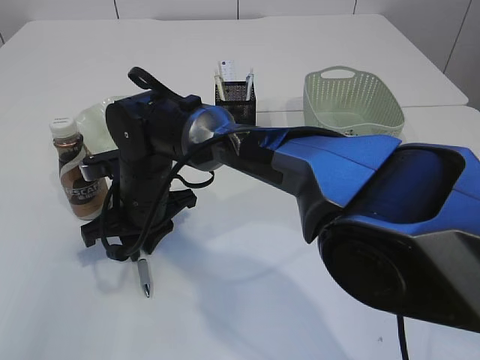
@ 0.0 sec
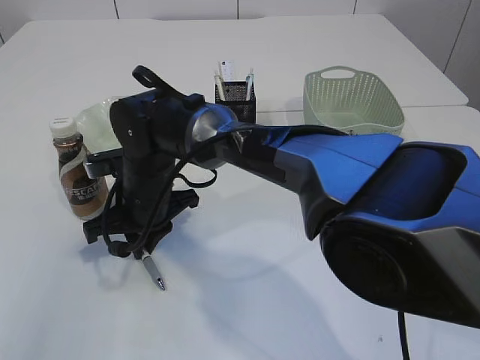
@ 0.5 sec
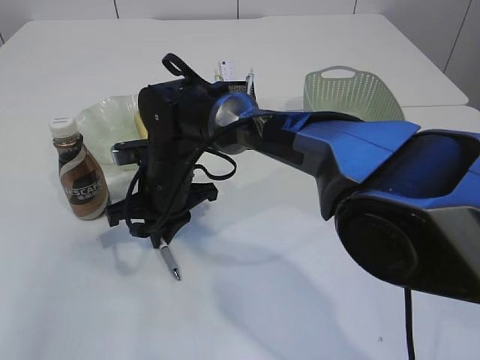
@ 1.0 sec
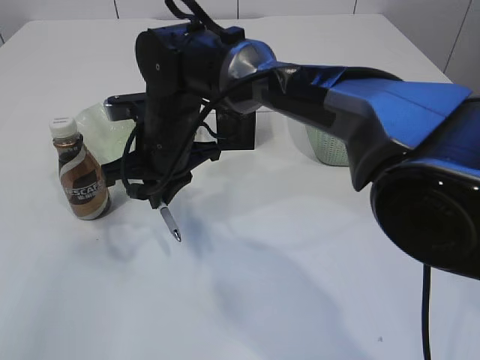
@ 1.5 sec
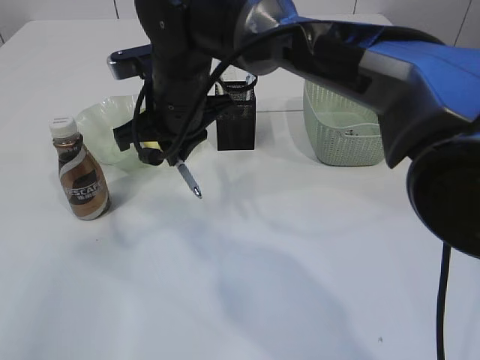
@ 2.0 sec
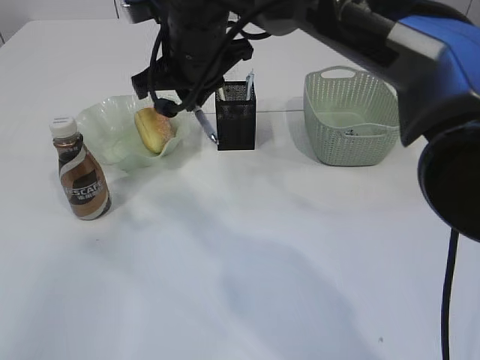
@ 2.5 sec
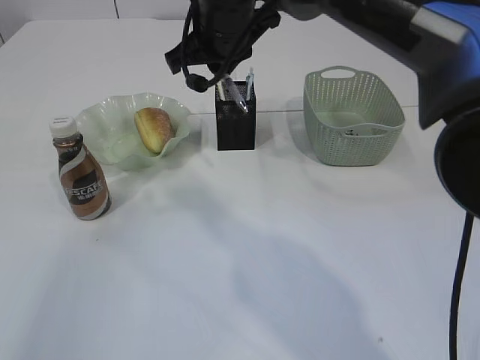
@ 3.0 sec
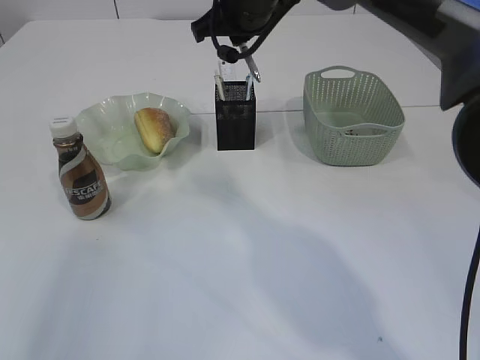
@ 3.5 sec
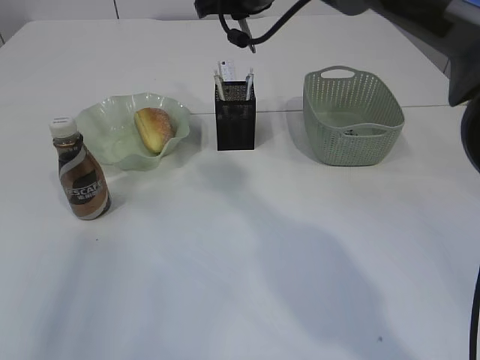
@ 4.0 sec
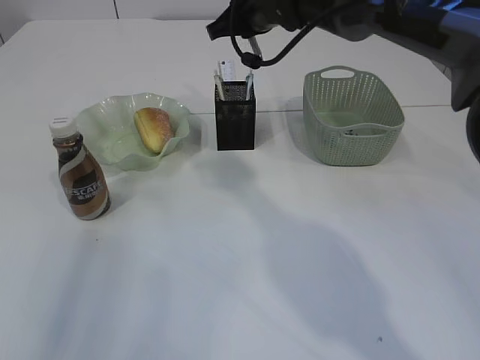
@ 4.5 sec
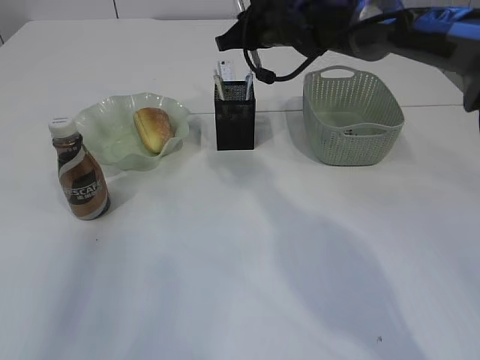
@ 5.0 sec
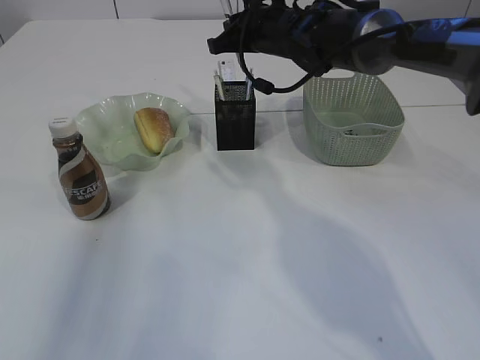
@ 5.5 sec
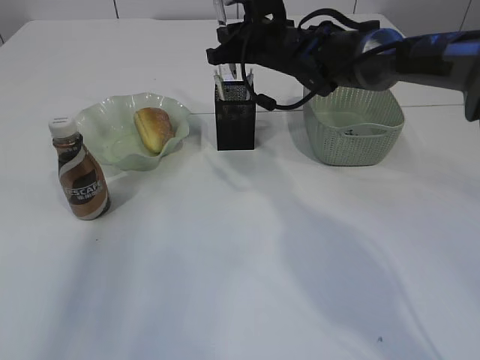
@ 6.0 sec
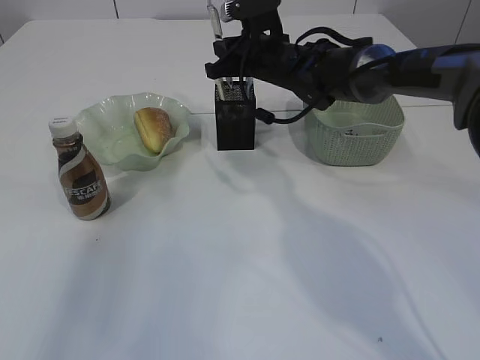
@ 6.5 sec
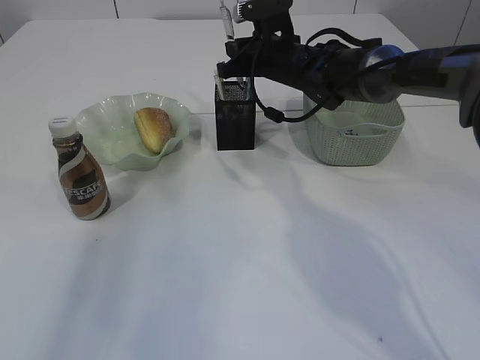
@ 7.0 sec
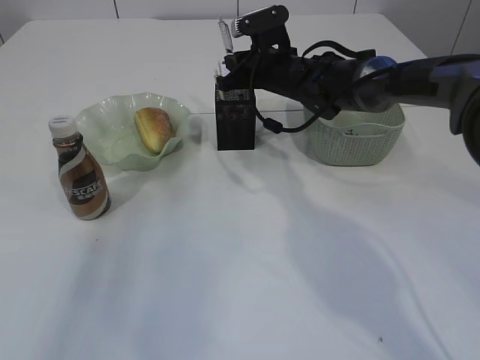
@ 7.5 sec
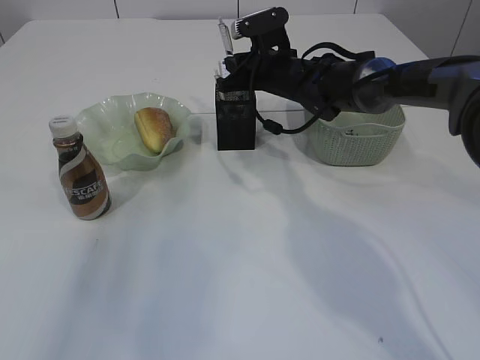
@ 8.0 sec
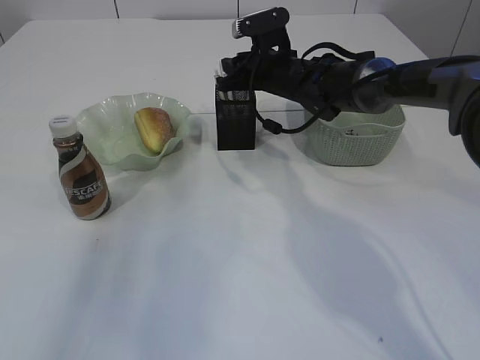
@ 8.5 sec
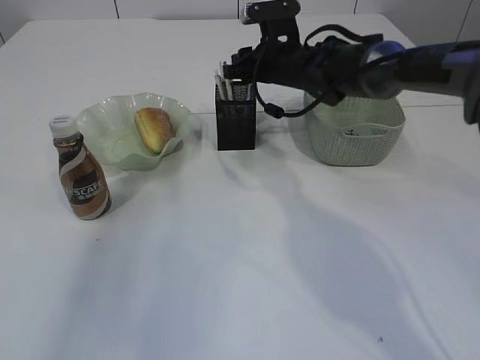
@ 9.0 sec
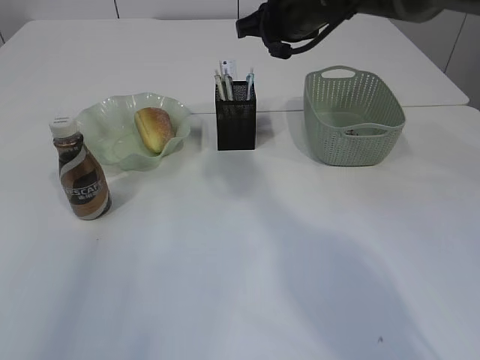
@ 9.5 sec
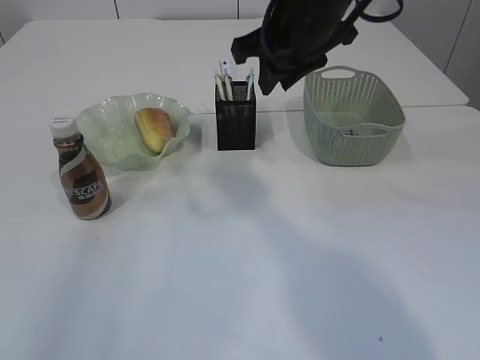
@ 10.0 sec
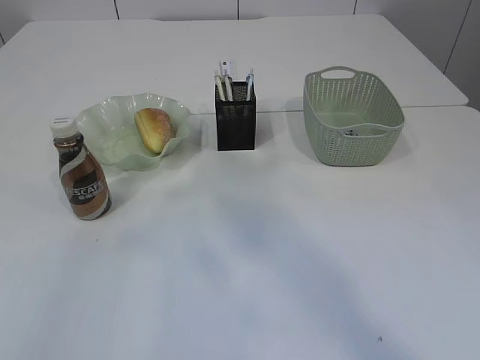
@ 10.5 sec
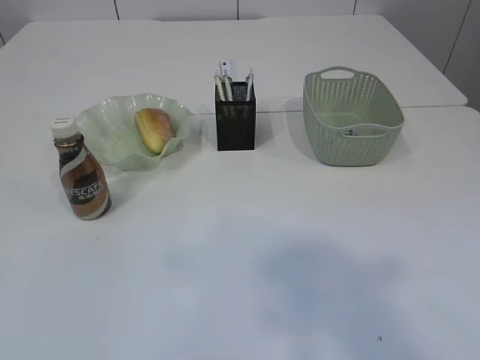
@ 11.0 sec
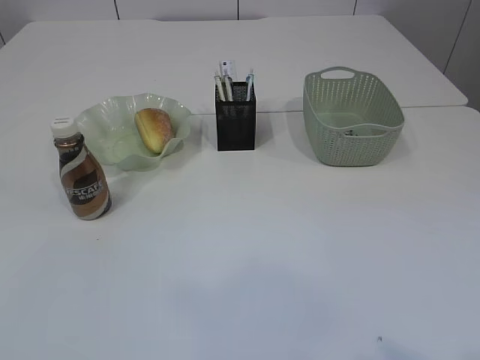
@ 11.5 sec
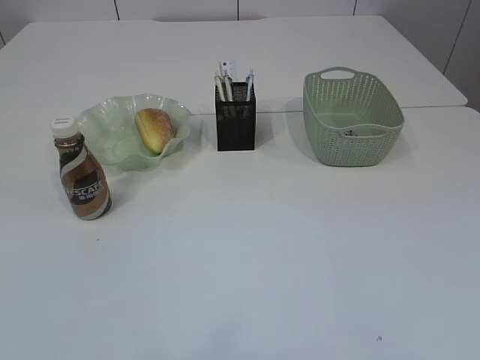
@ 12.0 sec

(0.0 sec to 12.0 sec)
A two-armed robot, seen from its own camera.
Step, 0.0 sec - 2.0 sec: Pick up the pen with right arm.
Step, 2.5 sec - 9.5 sec: Place the pen into the pen holder.
0.0 sec - 2.0 sec: The right gripper heads upward and to the right, covering about 10 cm.
2.0 sec - 4.0 sec: The right gripper is displaced to the right, forward and upward by approximately 15 cm. The left gripper shifts by roughly 5 cm.
4.0 sec - 6.0 sec: The right gripper travels downward by approximately 10 cm.
6.0 sec - 8.0 sec: The right gripper moves downward, roughly 5 cm.
8.0 sec - 10.0 sec: The left gripper goes roughly 5 cm backward, and opens up. The right gripper goes roughly 20 cm upward and backward.
10.0 sec - 12.0 sec: The left gripper goes some 20 cm backward, while the right gripper heads backward and to the right, covering some 50 cm.

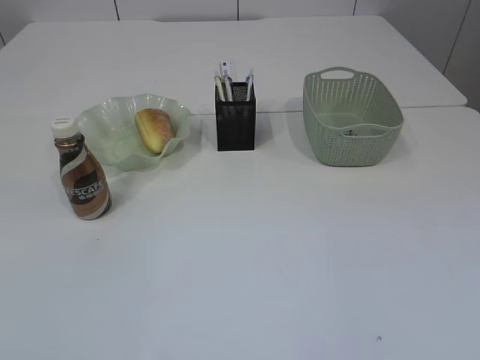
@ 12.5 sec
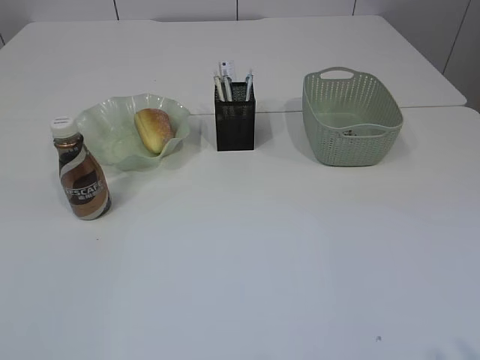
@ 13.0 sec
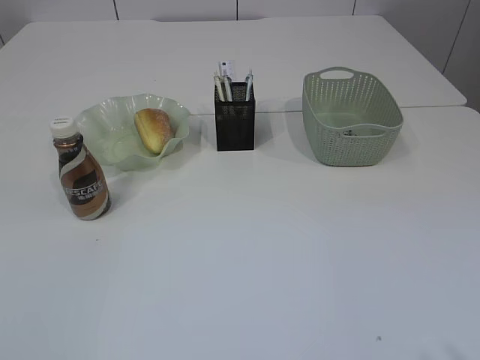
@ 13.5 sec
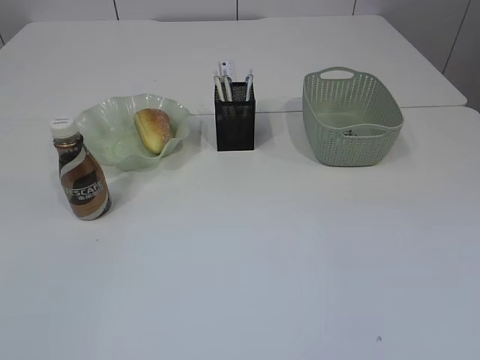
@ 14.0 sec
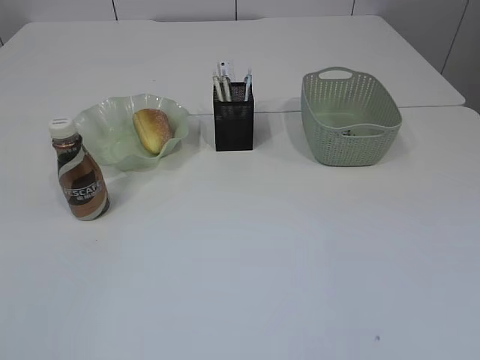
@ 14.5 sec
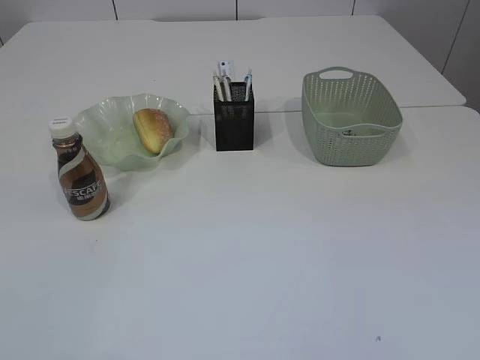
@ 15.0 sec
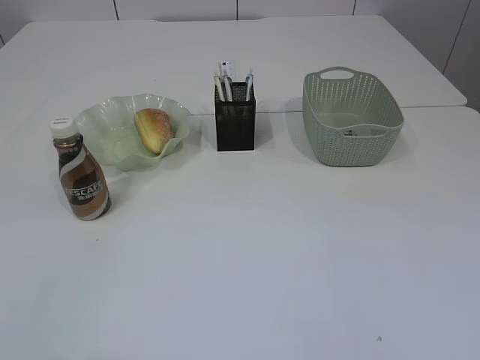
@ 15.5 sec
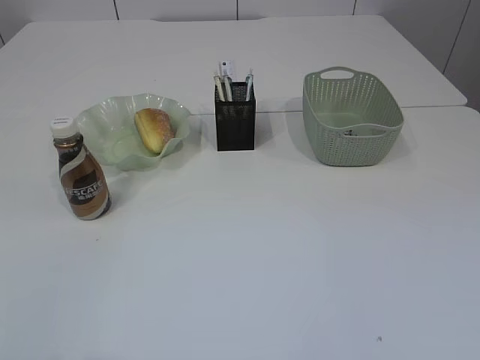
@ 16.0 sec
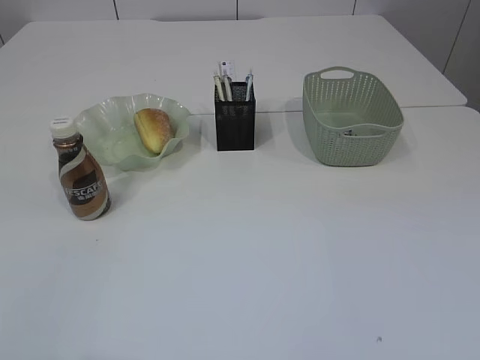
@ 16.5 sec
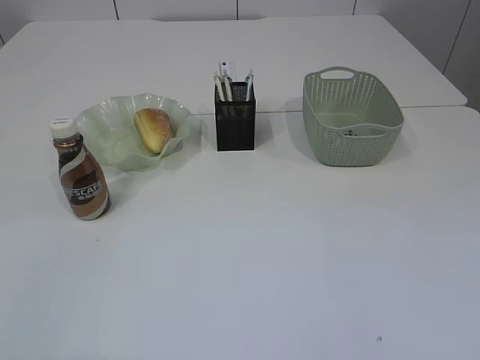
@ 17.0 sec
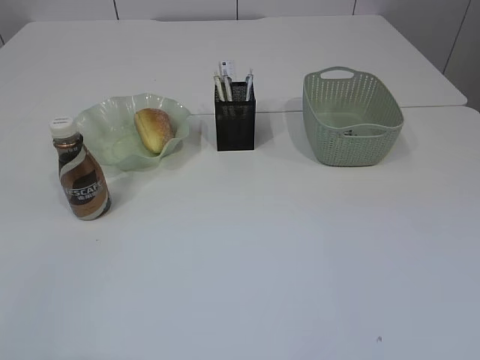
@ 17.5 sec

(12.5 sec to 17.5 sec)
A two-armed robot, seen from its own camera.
12.5 sec - 15.0 sec: The left gripper is displaced downward and forward by roughly 15 cm.
